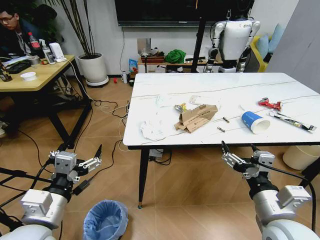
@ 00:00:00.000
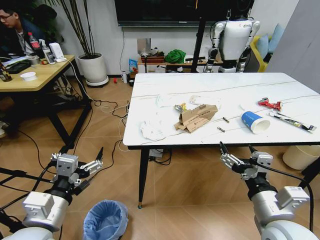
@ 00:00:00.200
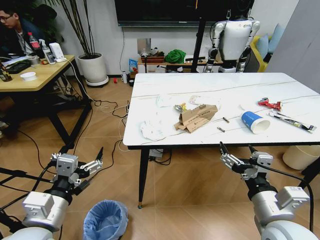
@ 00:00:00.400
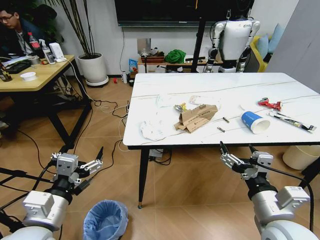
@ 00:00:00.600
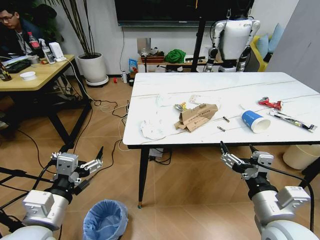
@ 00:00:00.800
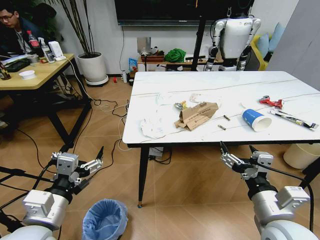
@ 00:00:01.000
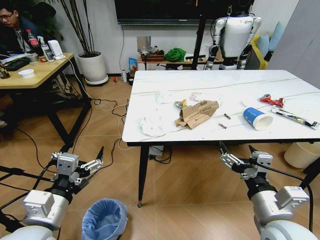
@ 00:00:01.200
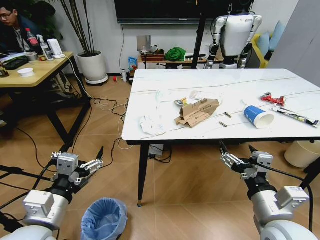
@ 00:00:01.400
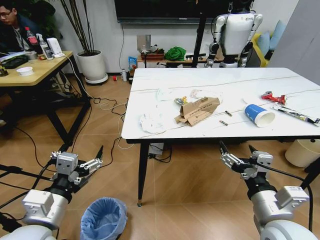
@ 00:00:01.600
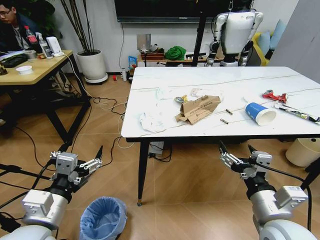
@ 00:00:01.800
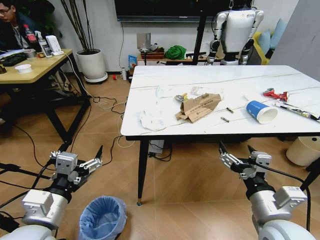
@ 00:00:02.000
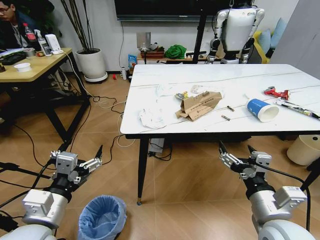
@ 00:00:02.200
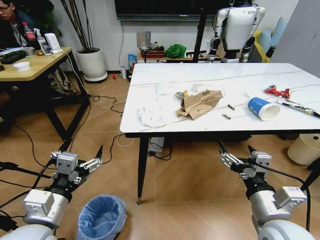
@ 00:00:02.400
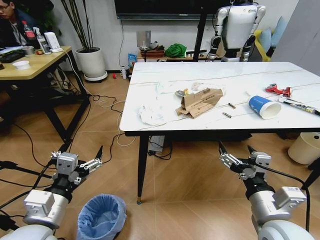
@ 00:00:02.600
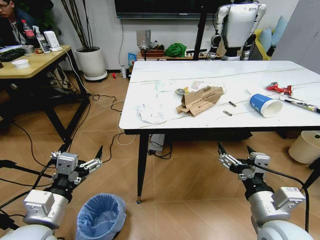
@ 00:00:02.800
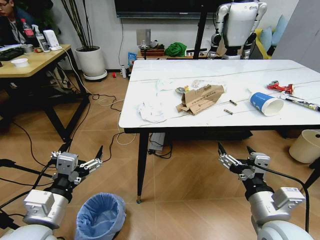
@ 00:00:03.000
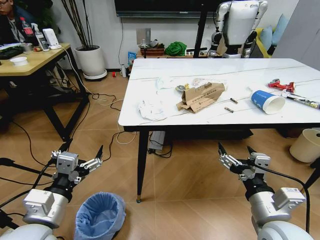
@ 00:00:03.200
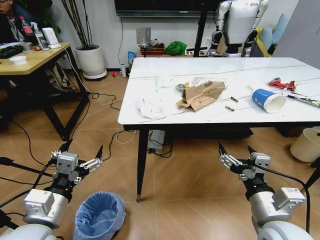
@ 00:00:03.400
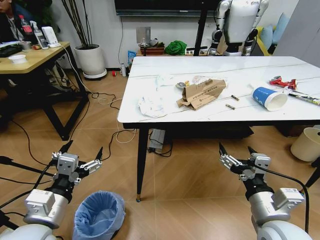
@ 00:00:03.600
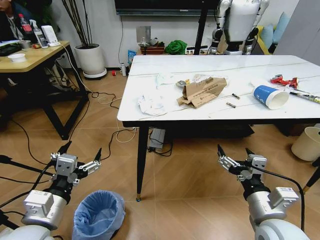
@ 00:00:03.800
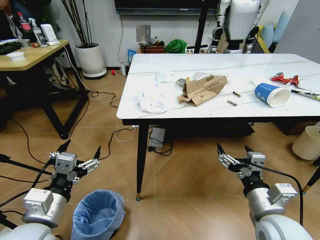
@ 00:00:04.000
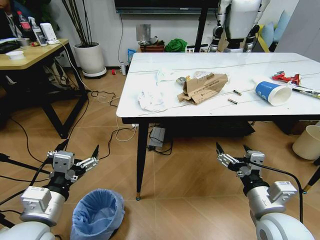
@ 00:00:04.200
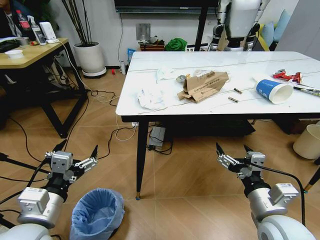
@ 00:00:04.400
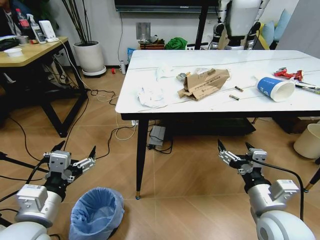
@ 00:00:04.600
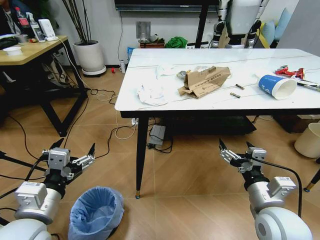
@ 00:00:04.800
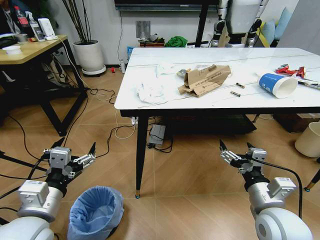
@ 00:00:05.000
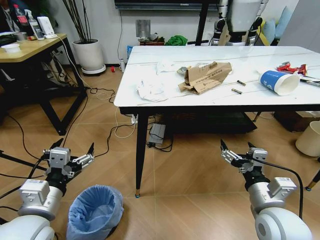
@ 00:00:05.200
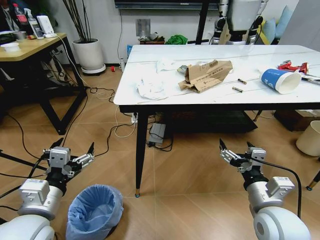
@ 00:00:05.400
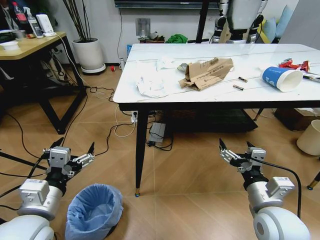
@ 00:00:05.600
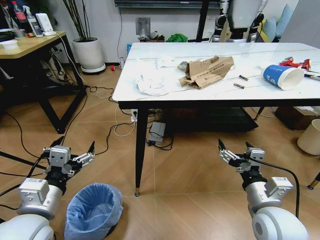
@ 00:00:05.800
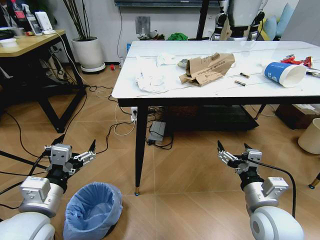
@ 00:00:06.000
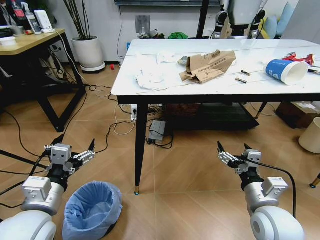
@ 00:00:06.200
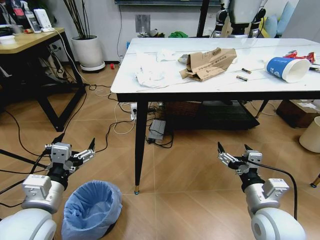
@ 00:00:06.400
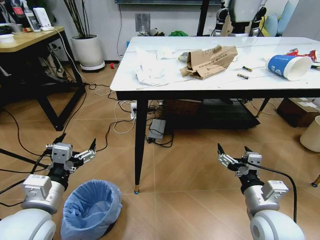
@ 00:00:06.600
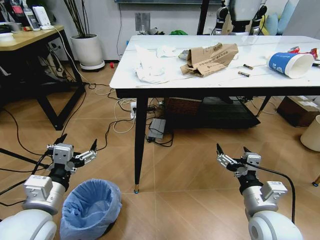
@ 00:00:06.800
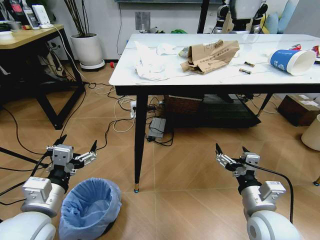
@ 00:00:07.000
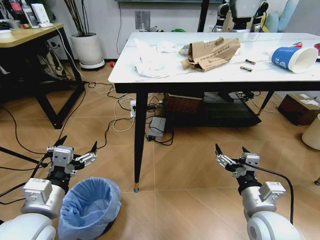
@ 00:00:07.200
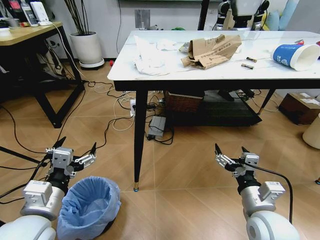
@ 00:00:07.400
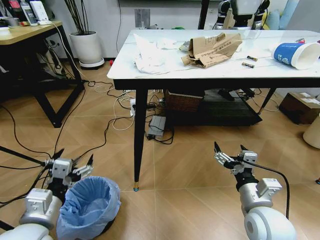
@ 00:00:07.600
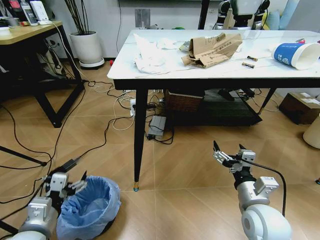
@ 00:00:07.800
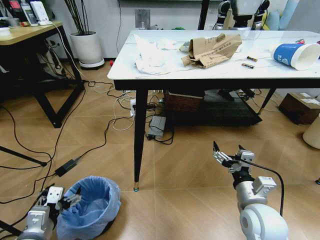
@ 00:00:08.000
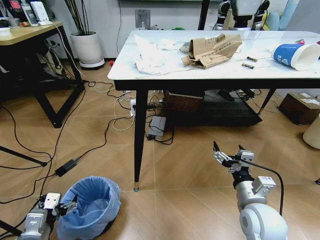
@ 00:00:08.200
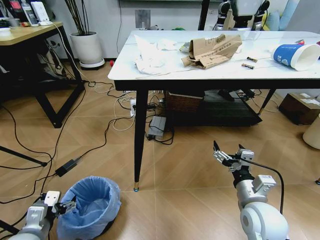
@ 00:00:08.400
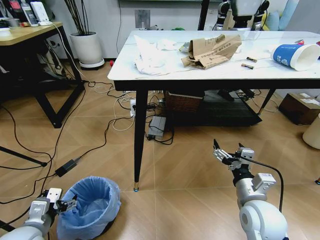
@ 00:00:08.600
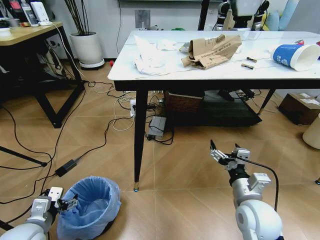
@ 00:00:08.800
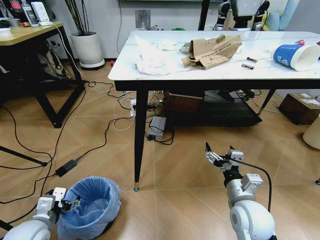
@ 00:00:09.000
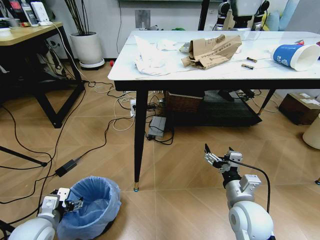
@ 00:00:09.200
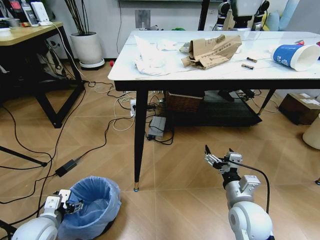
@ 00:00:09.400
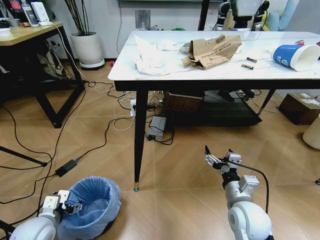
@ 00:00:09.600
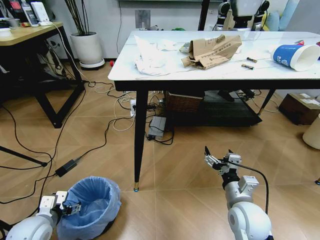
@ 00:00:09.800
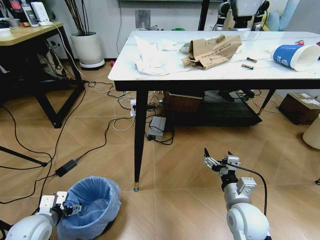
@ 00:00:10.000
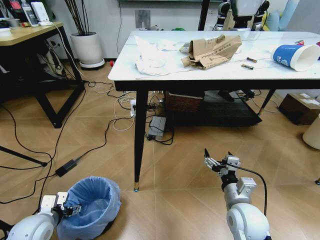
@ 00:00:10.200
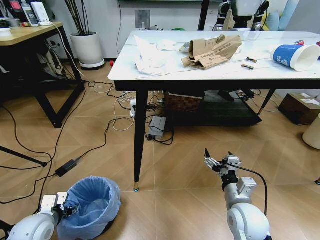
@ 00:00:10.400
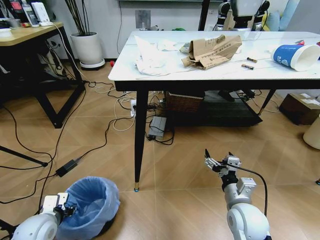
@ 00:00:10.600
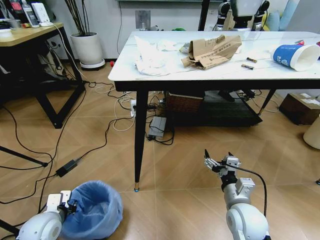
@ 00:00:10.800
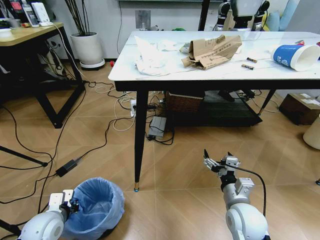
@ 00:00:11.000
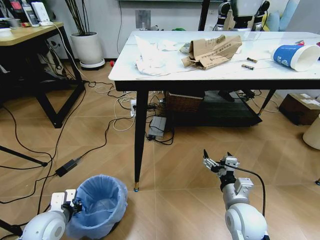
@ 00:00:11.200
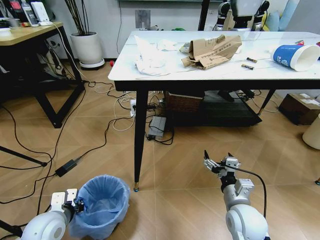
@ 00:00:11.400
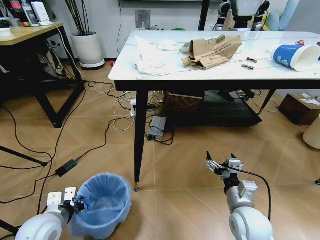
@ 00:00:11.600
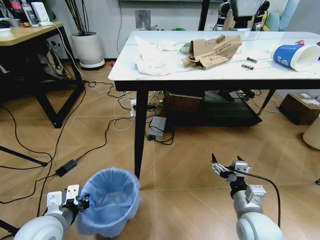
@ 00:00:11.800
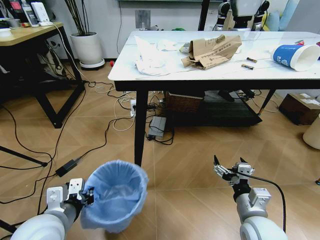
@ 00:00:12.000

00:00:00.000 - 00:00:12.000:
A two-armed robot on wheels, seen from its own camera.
Task of the whole recording: Pick up the trash bin and place the trash from the table into it.
00:00:07.600 - 00:00:09.000: The left gripper moves downward and to the left, roughly 15 cm.
00:00:09.000 - 00:00:10.400: The grippers move only a little.
00:00:10.400 - 00:00:12.000: The left gripper heads upward and to the right, covering some 15 cm, and closes its fingers.

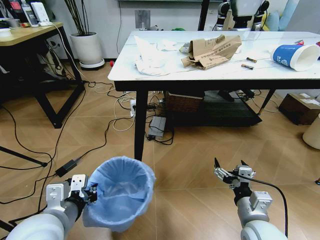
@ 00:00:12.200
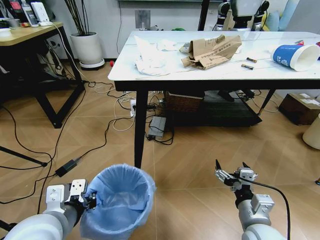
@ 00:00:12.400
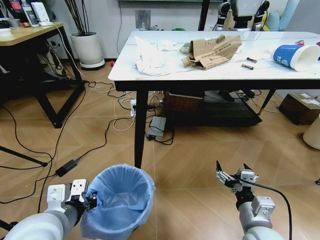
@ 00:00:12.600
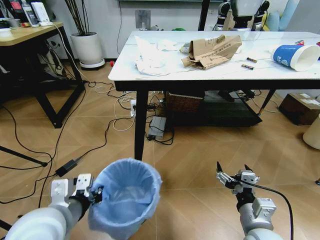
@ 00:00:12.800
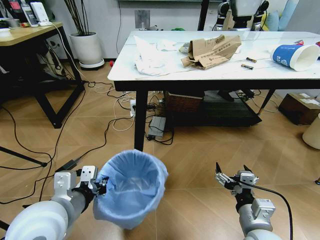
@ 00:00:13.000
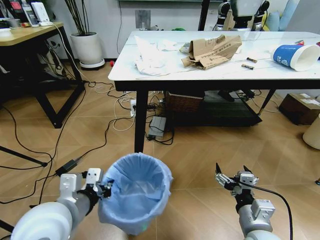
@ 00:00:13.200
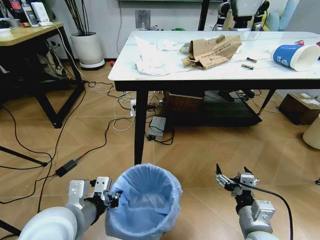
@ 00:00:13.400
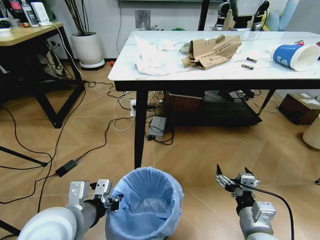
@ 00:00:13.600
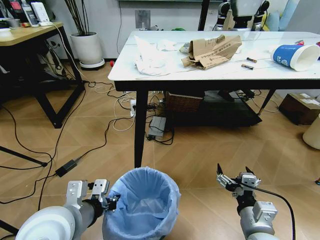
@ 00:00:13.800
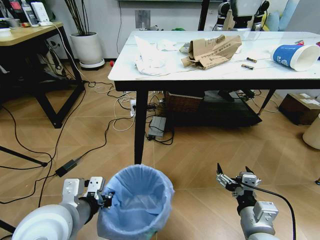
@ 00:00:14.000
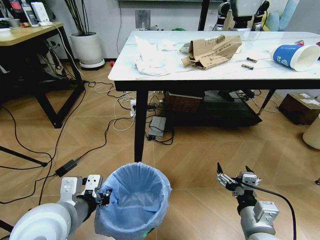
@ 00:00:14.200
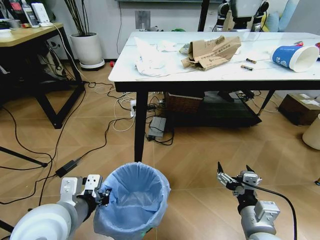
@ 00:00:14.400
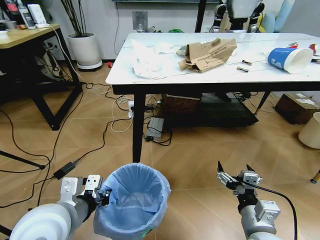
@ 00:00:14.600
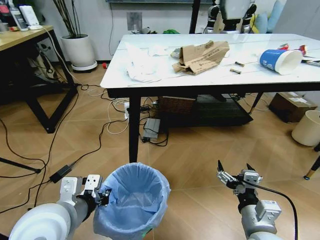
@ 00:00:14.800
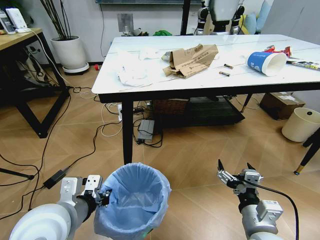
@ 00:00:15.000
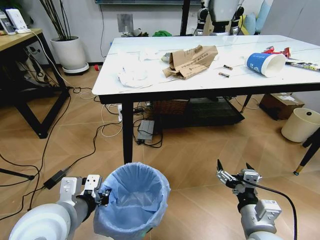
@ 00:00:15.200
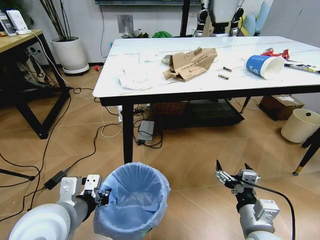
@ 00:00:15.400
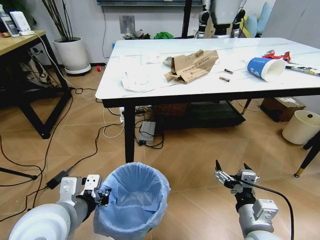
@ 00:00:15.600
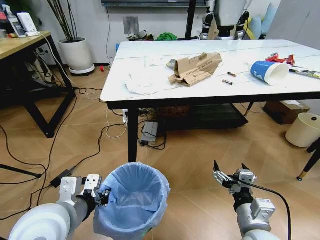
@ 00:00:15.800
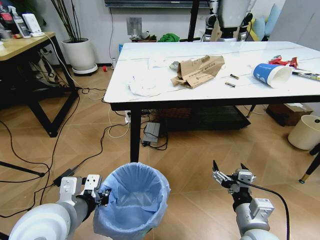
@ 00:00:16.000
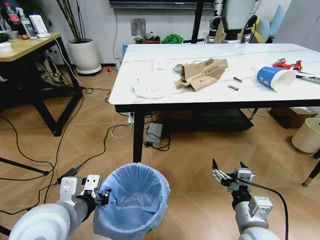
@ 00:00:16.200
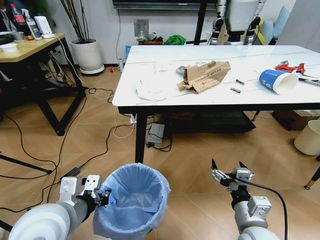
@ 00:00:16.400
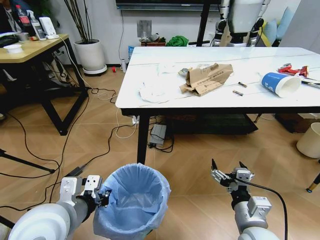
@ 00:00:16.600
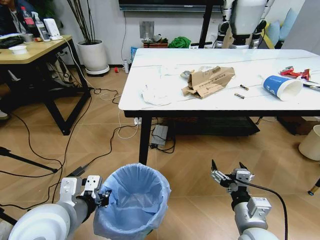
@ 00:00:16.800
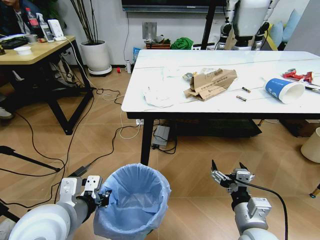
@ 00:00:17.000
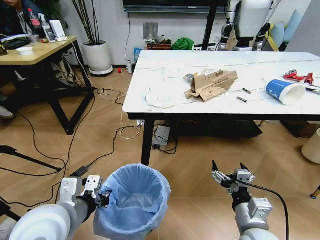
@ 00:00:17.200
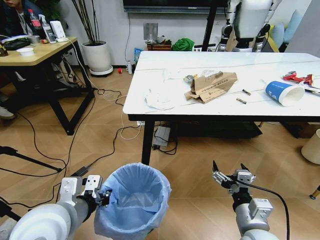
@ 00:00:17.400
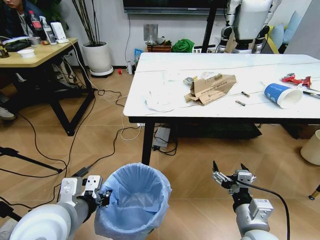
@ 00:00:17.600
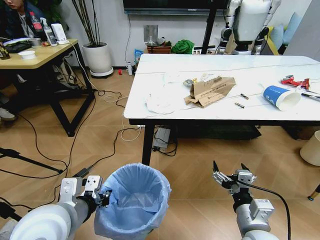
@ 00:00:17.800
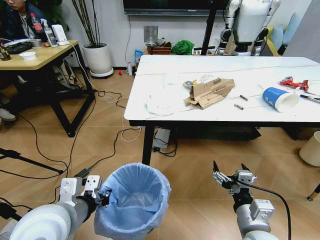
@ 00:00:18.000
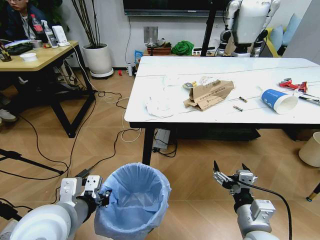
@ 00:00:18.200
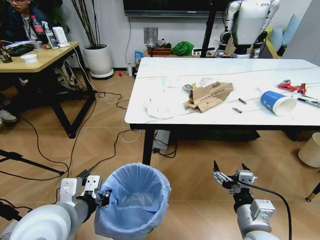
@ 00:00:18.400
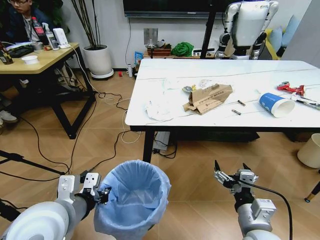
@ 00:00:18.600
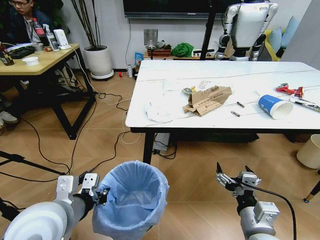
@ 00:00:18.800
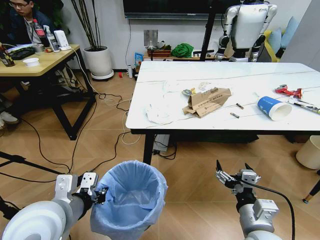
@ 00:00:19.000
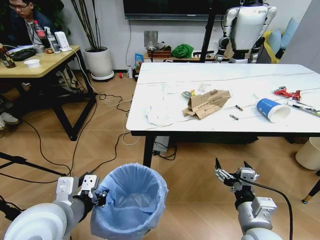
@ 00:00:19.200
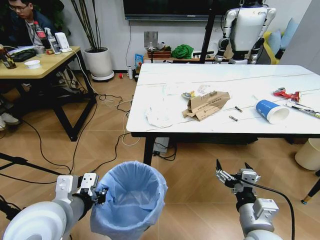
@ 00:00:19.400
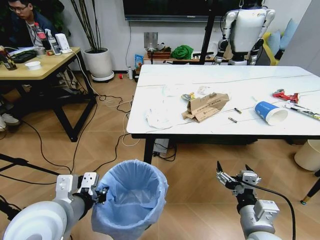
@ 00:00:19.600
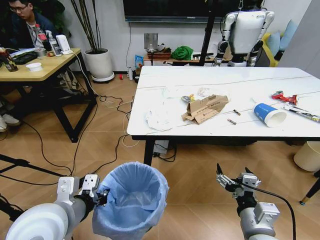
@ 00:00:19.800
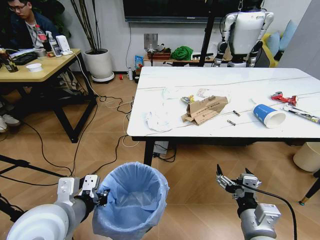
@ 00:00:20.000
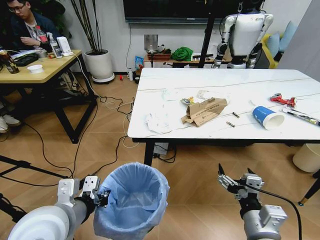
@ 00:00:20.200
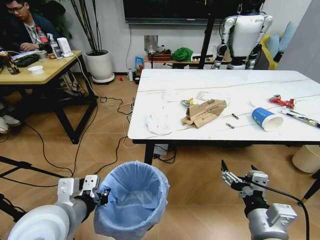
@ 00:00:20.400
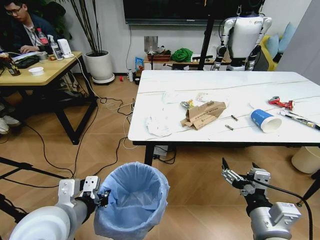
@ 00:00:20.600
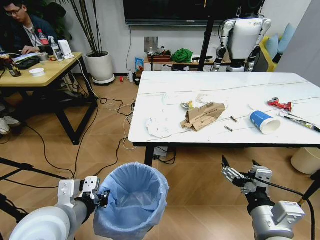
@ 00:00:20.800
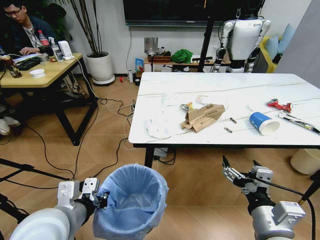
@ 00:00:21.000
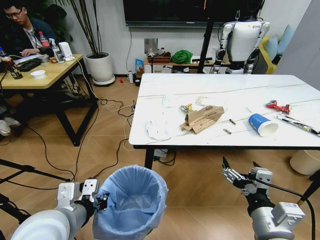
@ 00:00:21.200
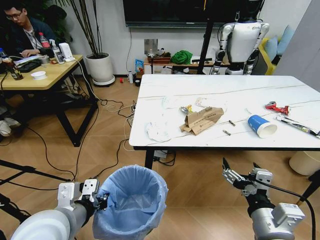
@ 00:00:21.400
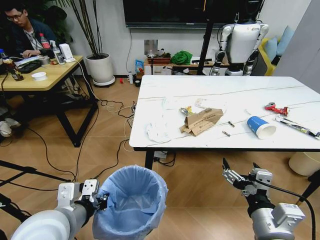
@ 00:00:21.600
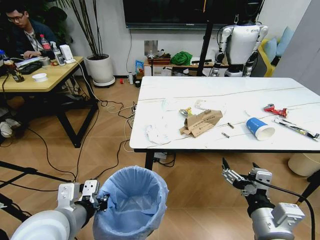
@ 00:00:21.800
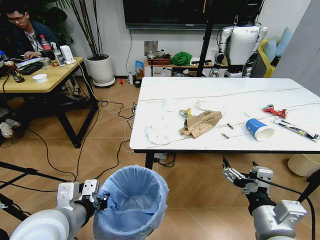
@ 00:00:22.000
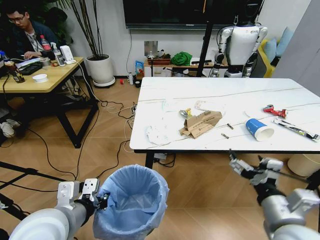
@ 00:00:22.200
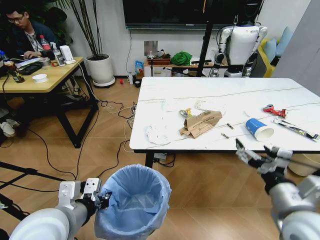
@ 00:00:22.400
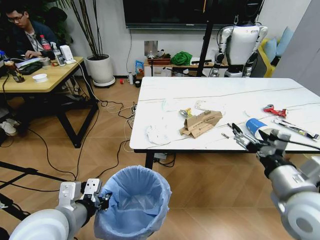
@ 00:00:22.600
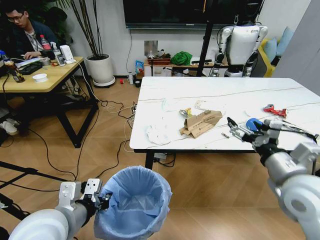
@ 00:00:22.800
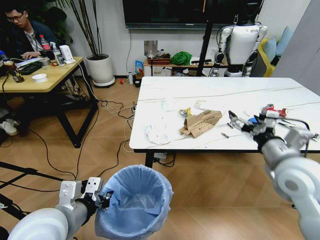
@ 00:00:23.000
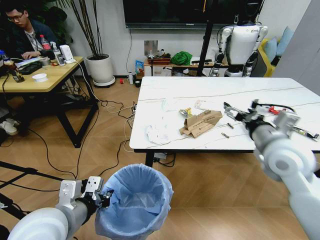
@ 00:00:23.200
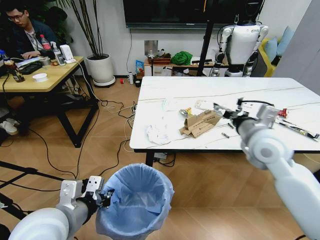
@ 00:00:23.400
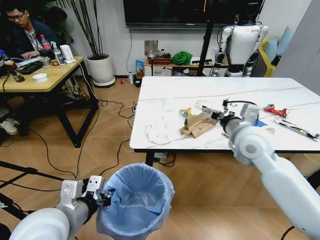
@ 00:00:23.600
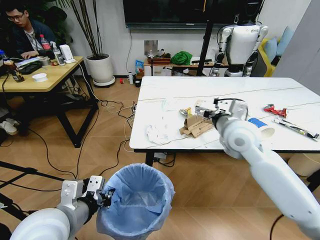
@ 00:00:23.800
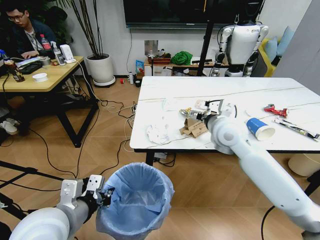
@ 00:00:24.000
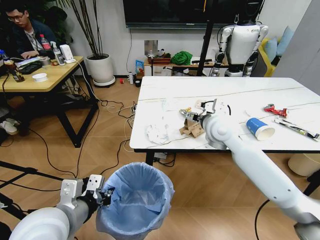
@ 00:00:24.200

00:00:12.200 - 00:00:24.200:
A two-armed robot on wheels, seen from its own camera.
Task of the whole recording: Pick up the trash bin and place the trash from the table into it.
00:00:12.200 - 00:00:13.800: The grippers stay close to where they were, moving slightly.
00:00:19.800 - 00:00:21.200: The right gripper is displaced upward by approximately 5 cm.
00:00:21.200 - 00:00:22.600: The right gripper shifts about 10 cm upward, forward and to the right.
00:00:22.600 - 00:00:24.200: The right gripper goes roughly 25 cm forward and to the left.
